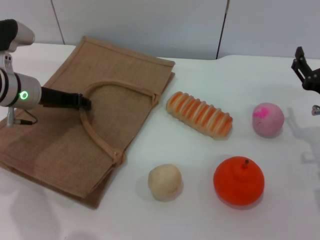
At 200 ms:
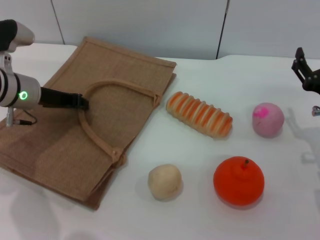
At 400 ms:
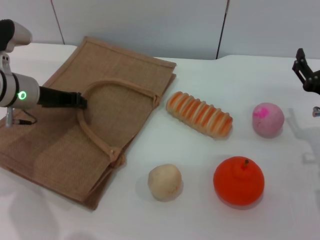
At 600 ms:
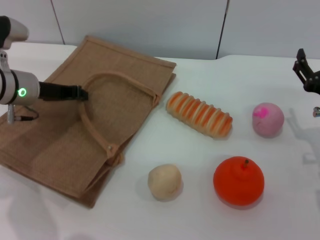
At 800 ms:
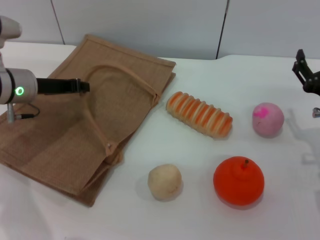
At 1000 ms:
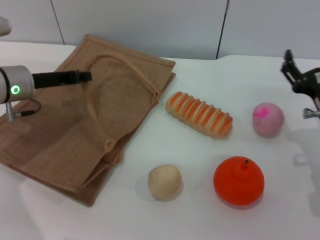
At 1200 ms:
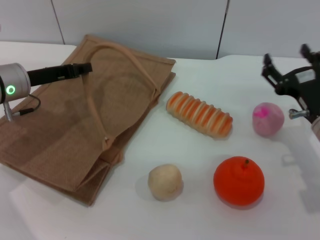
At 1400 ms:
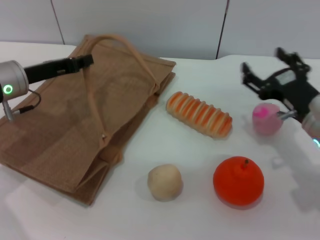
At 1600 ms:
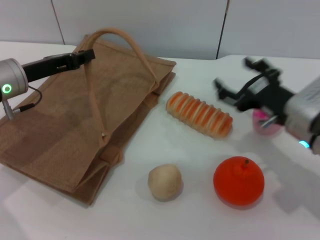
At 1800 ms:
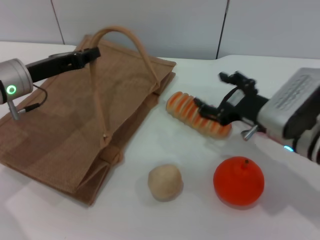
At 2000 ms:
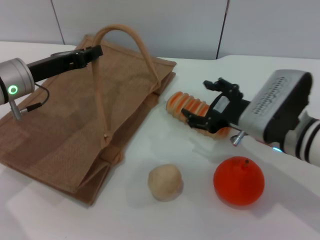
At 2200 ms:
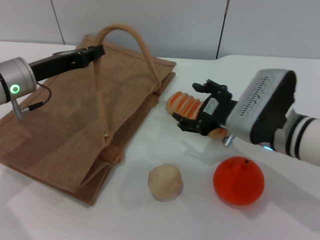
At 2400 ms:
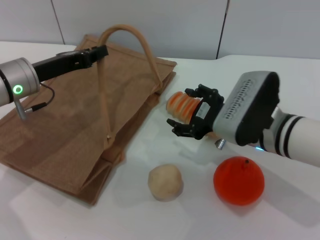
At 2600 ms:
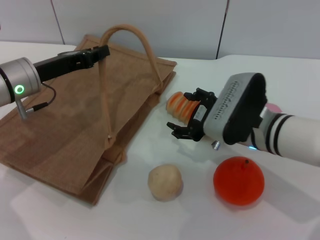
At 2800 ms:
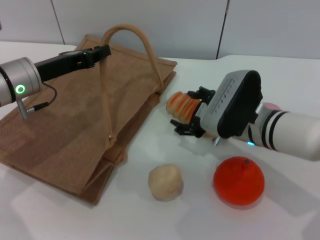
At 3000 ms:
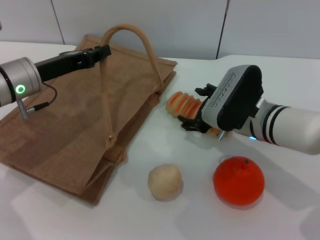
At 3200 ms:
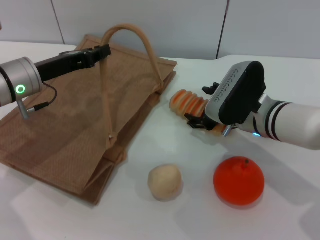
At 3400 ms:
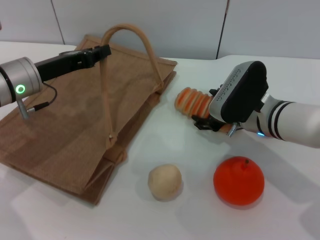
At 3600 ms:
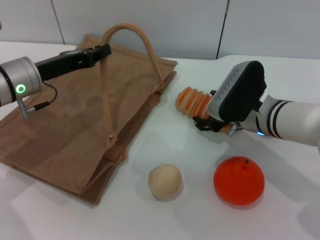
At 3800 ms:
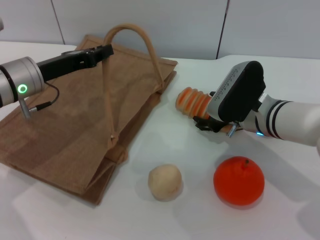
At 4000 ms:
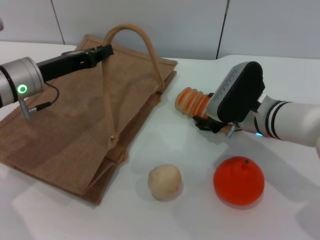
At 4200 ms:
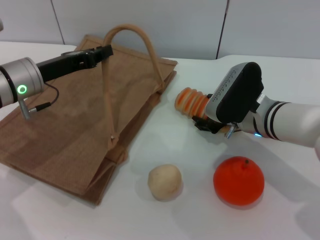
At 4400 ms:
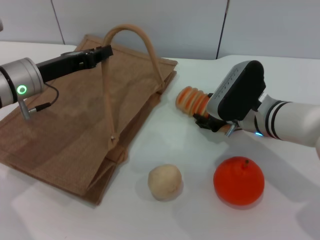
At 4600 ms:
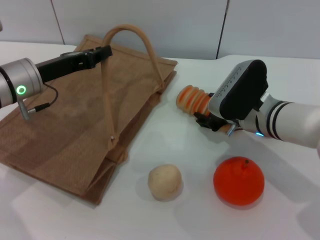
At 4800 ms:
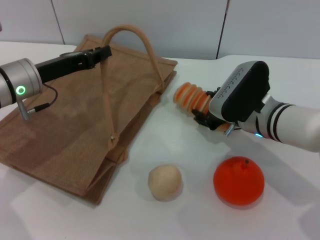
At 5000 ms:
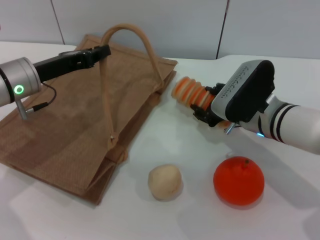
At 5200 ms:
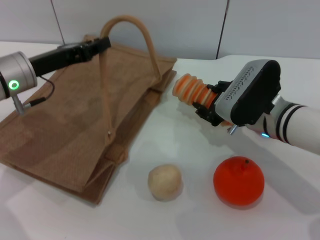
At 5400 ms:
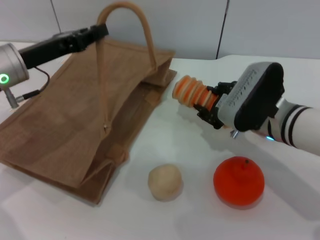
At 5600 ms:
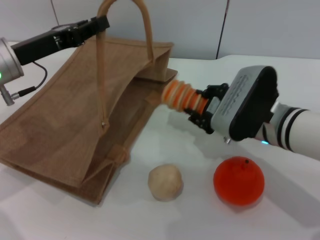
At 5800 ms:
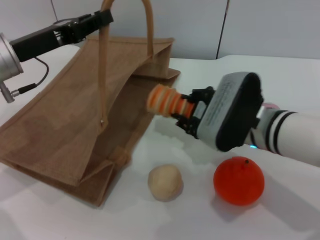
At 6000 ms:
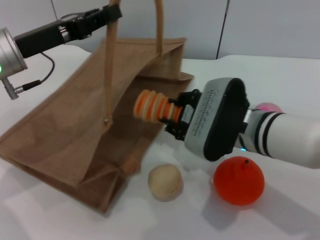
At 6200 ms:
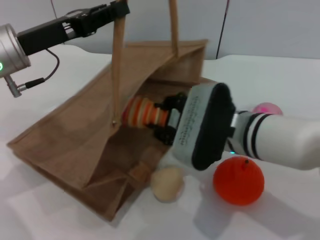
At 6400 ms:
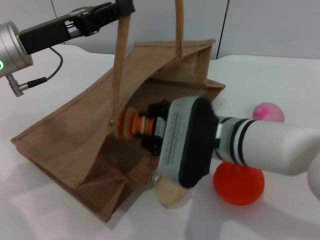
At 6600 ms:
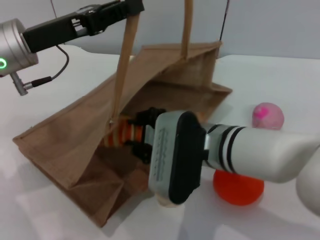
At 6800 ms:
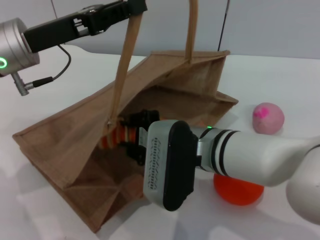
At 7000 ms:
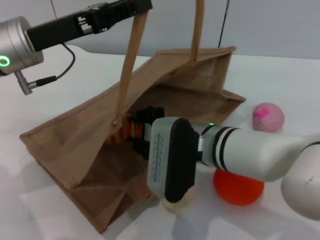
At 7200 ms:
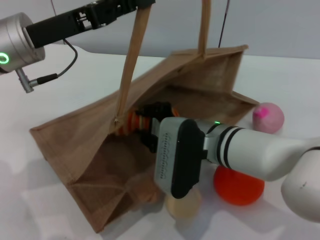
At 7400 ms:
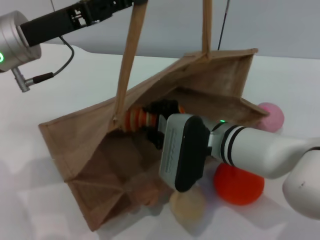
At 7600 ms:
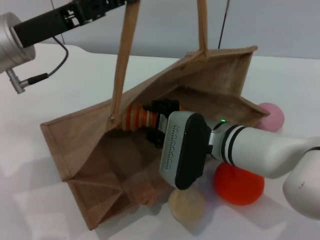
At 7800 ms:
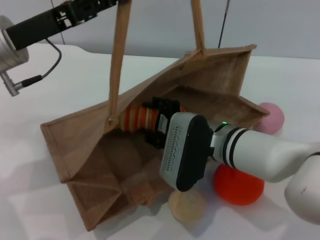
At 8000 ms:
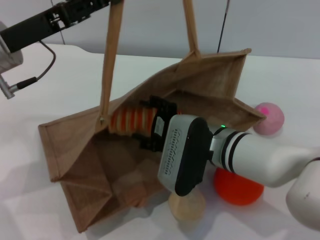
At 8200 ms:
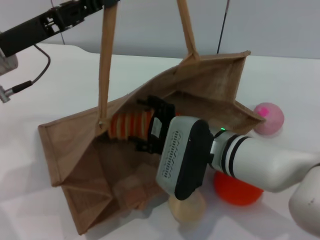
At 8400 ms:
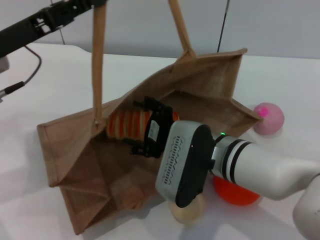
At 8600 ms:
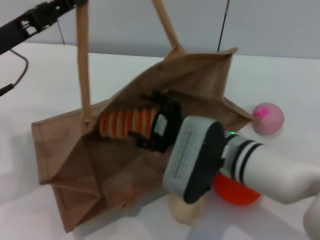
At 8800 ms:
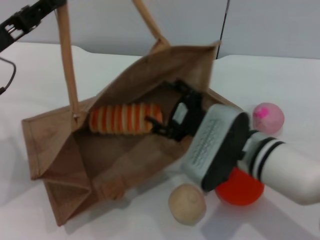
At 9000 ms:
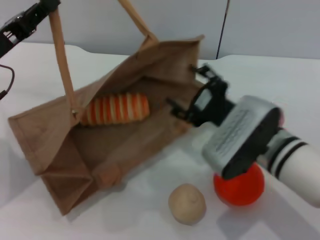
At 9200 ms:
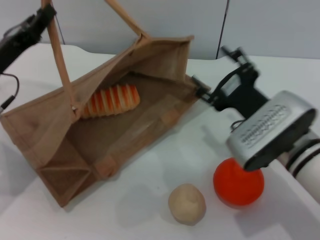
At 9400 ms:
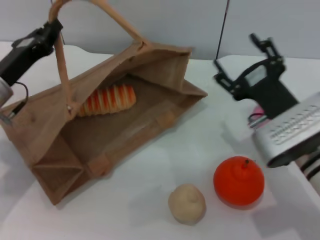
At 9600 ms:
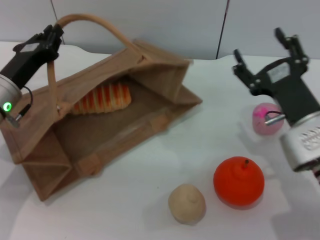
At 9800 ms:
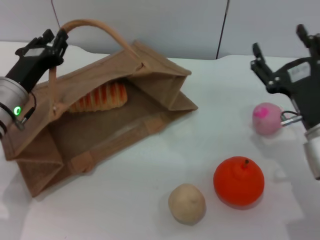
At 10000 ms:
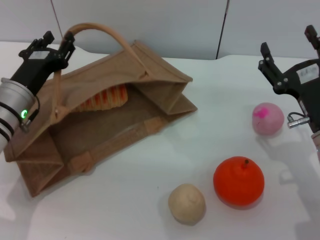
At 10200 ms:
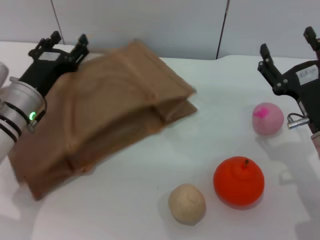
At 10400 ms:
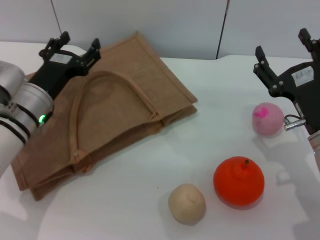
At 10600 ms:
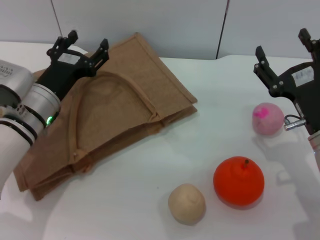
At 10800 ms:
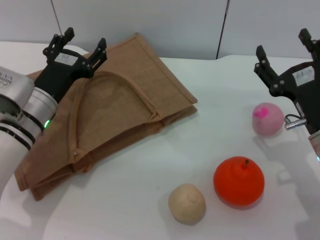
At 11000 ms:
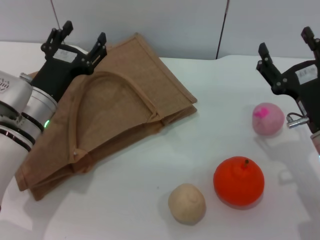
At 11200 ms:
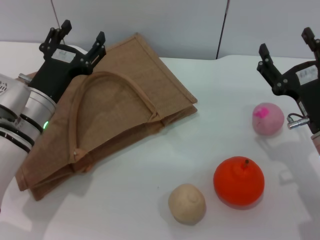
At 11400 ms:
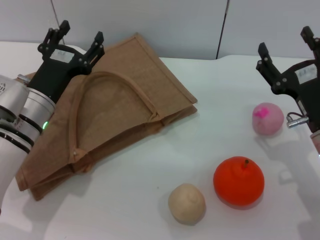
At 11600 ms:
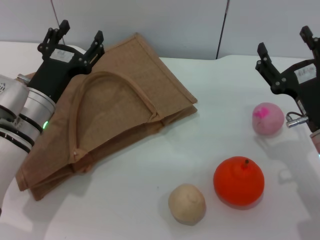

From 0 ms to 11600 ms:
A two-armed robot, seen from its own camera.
Task of the whole recording: pick up the bread from the table and place it in the brown handbag.
Step, from 800 ms to 5800 ms: Pick up the bread with the right gripper.
Step, from 6000 ms to 9200 ms: Place the bread into the woven bag with the right gripper.
Step, from 9400 ms to 10600 ms: Lower the woven bag with the left gripper to close it.
From 0 ms to 1400 ms: The left gripper closes up.
From 1400 ms to 2800 ms: The right gripper heads to the left, covering approximately 10 cm.
From 2800 ms to 4400 ms: There are only small adjustments of the grippers.
From 4400 ms to 5800 ms: The right gripper changes place by roughly 5 cm, and closes up.
From 5800 ms to 7200 ms: The right gripper goes approximately 5 cm to the left. Meanwhile the left gripper changes place by some 5 cm.
From 7200 ms to 8800 ms: The right gripper opens, while the left gripper shifts some 5 cm to the left.
From 8800 ms to 10200 ms: The right gripper moves to the right, some 10 cm. Meanwhile the left gripper travels downward and to the right by roughly 10 cm, and opens.
From 10200 ms to 11600 ms: The left gripper opens its fingers.

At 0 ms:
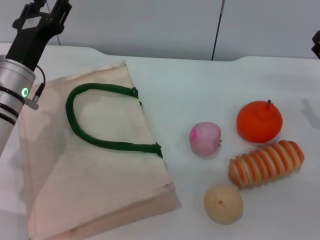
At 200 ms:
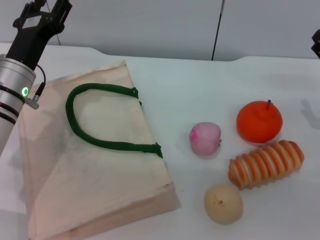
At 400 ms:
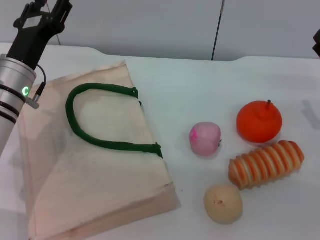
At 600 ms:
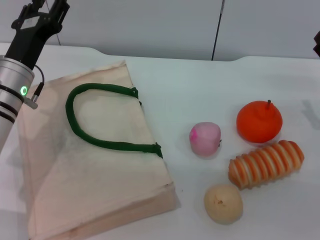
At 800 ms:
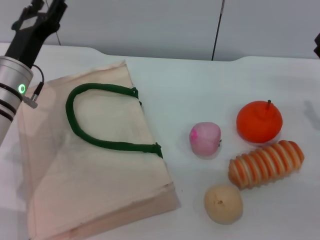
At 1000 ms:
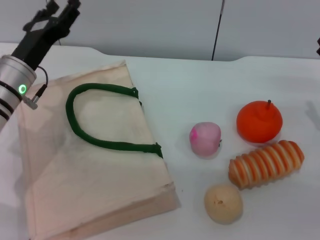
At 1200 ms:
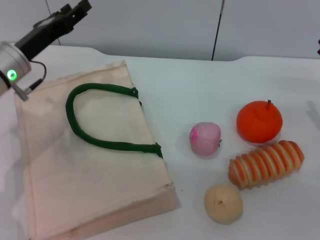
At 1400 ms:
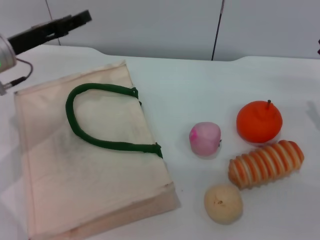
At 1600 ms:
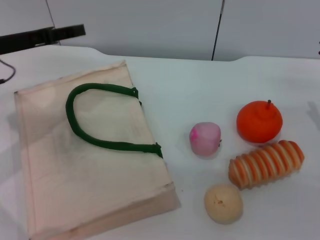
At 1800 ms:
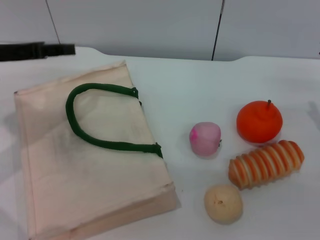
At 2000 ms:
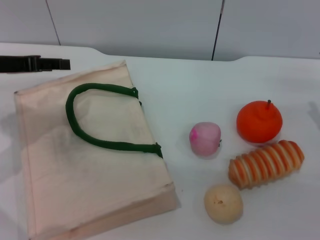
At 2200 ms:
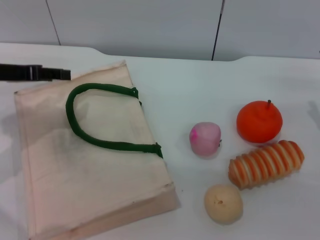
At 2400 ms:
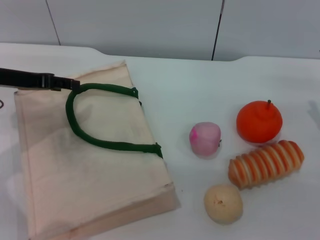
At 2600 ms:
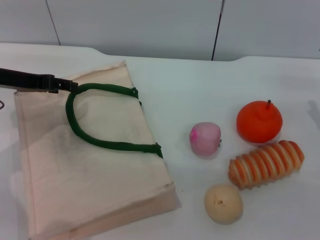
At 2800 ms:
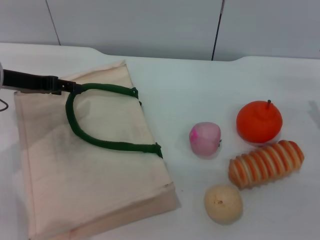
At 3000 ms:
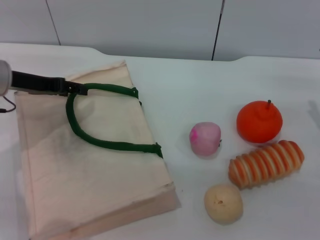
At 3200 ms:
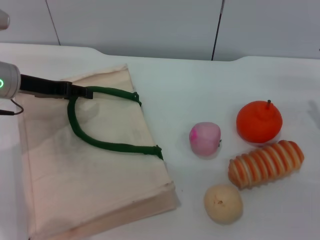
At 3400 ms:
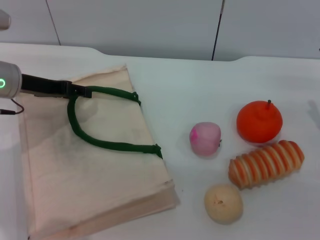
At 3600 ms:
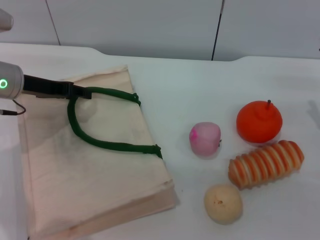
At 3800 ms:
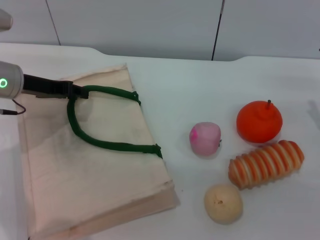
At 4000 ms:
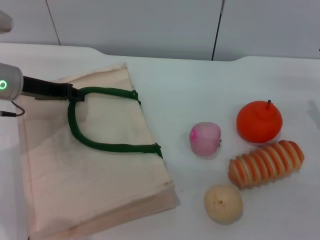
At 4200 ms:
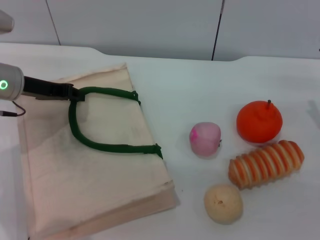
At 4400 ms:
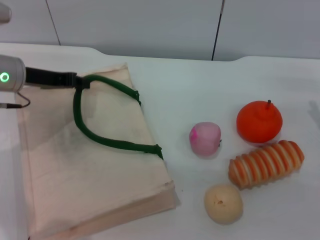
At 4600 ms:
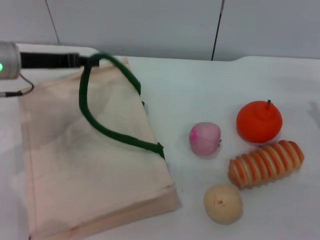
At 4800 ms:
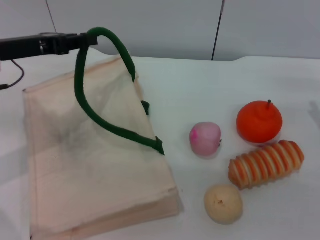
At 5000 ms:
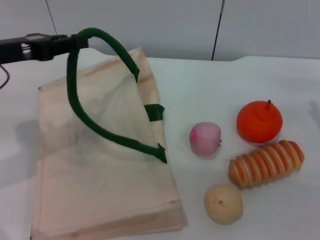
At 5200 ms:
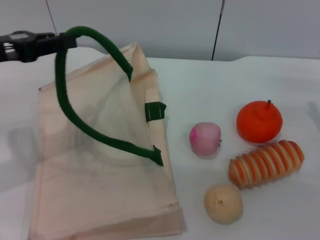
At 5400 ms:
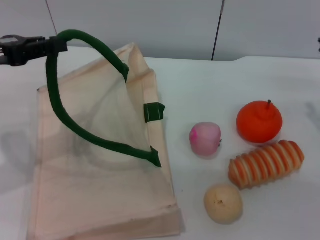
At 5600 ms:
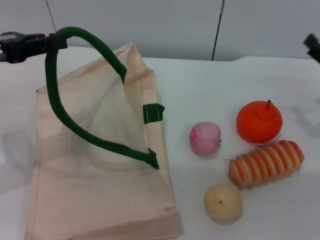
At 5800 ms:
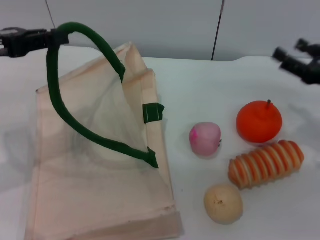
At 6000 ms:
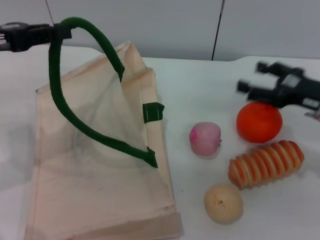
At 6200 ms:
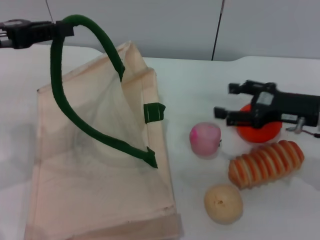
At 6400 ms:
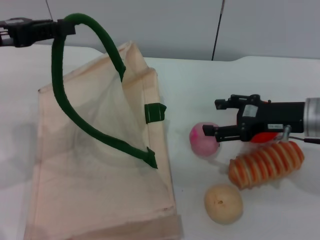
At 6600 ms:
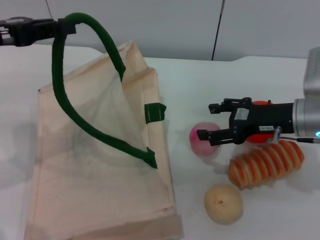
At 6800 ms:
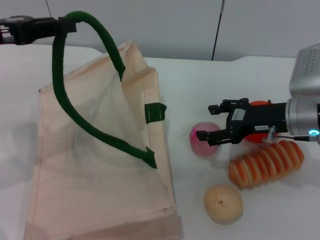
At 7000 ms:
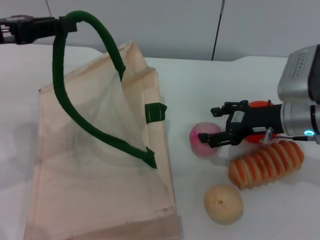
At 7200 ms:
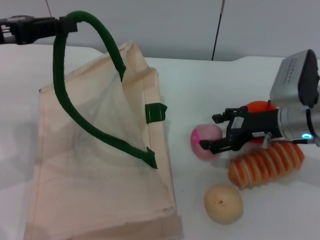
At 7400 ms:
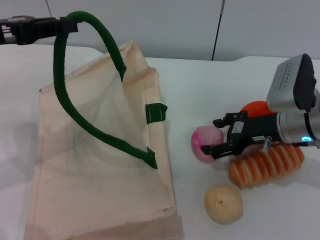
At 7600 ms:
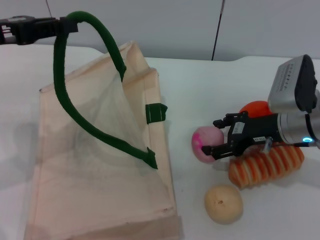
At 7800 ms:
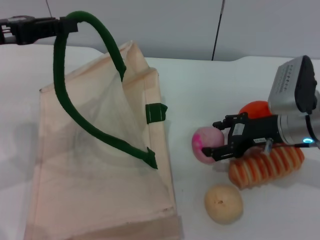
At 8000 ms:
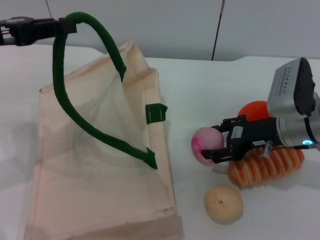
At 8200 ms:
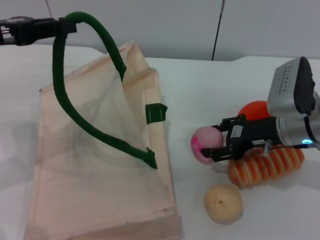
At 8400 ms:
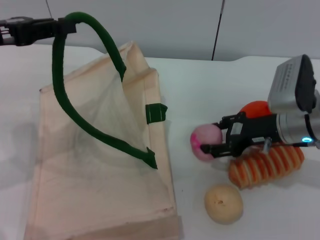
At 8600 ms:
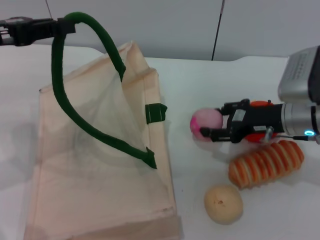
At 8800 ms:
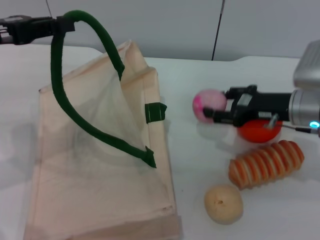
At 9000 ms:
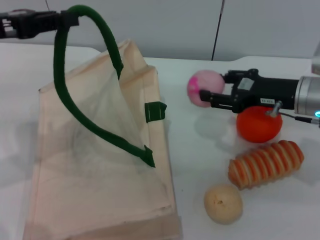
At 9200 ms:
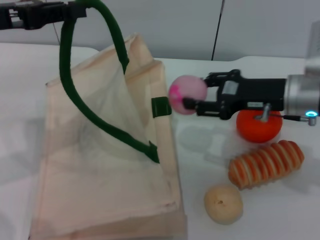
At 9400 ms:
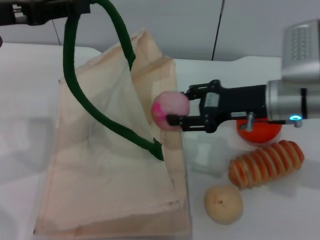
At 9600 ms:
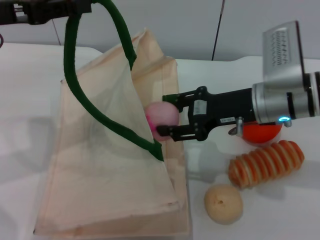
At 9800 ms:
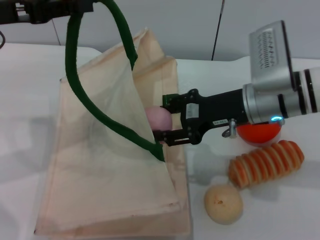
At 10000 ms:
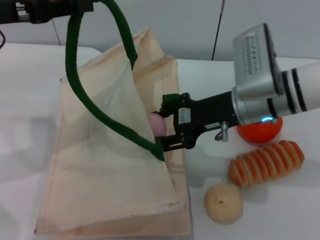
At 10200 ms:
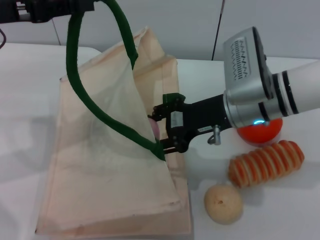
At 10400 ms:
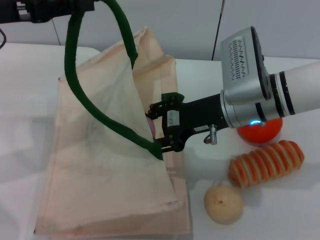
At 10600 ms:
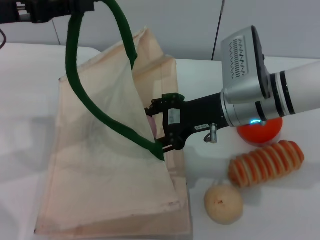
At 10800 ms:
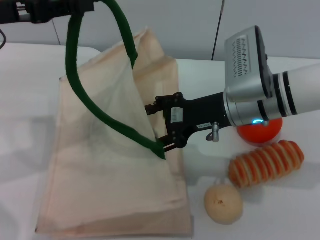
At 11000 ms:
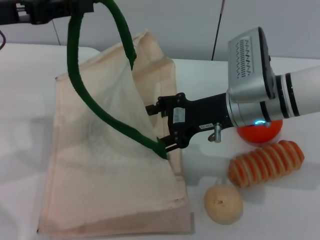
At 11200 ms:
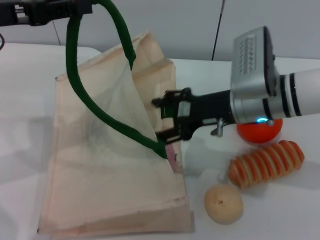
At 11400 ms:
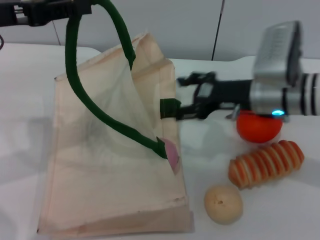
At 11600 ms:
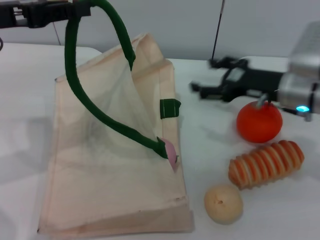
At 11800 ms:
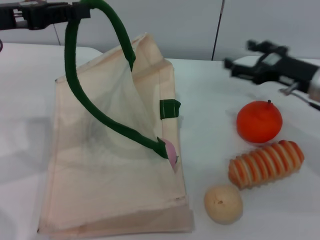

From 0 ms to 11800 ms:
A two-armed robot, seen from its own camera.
Task of the whole recording: pick up the peach from the table and place it in the white handbag.
Step, from 0 ms to 5200 ms: Lift the woven bag with the left gripper to open it.
Step, from 5600 ms to 8800 ms: Pick up the peach with the right gripper.
Step, from 9000 ms to 11000 ms: Place the peach into the woven bag with the right gripper.
From 0 ms to 1400 ms: The left gripper travels to the left by approximately 5 cm.
From 3000 ms to 4400 ms: The left gripper closes.
From 4400 ms to 6000 ms: The left gripper heads upward and backward, covering approximately 10 cm. Meanwhile the right gripper moves approximately 5 cm.
From 6000 ms to 7400 ms: The right gripper shifts some 5 cm to the left.
From 7400 ms to 8800 ms: The right gripper closes up.
From 8800 ms to 10400 ms: The right gripper travels to the left by approximately 10 cm.
From 10400 ms to 11800 ms: The right gripper is displaced to the right by roughly 15 cm, and opens its fingers.
